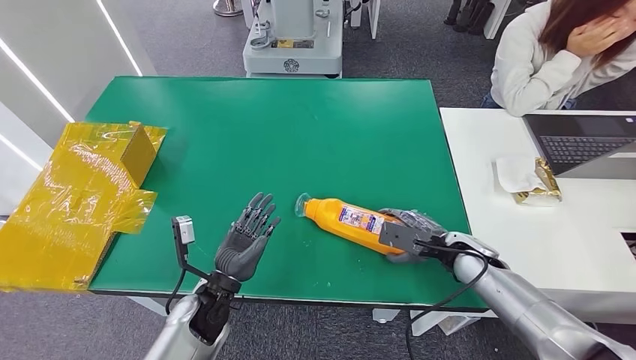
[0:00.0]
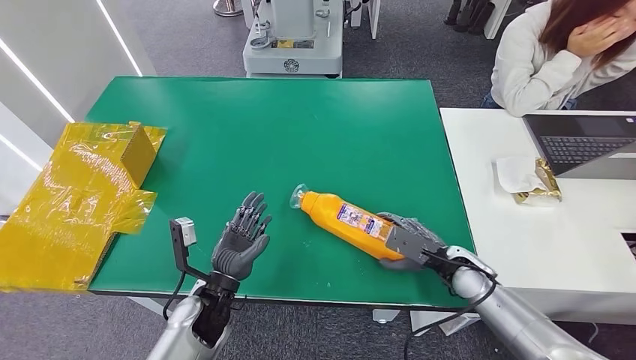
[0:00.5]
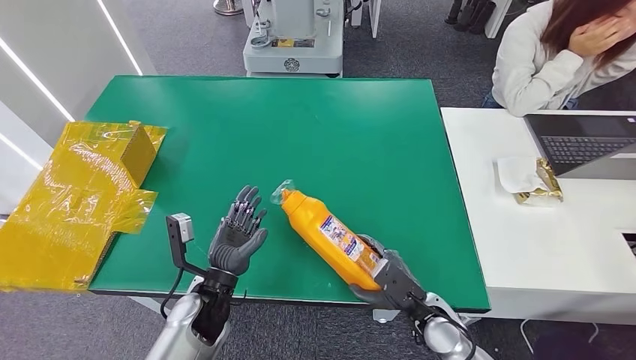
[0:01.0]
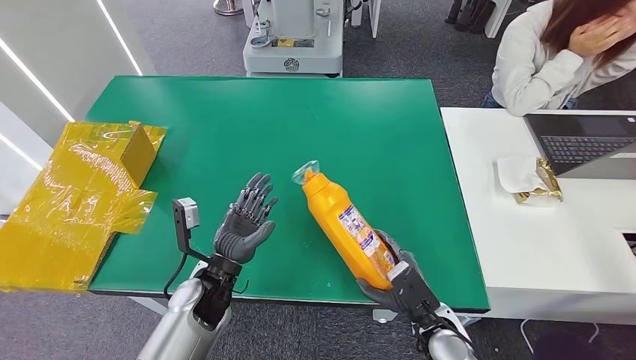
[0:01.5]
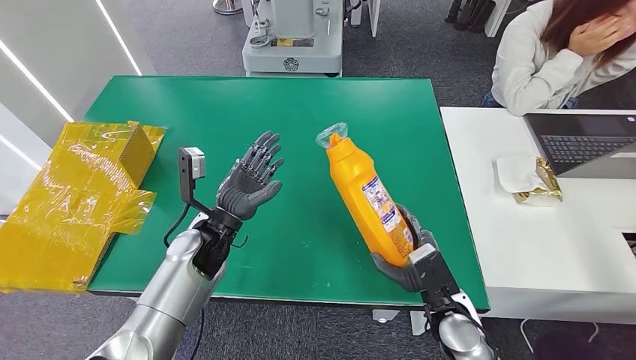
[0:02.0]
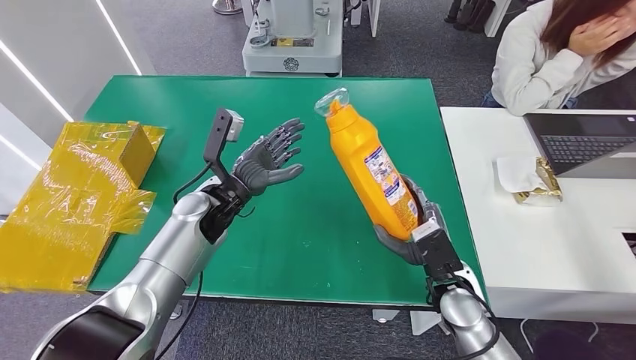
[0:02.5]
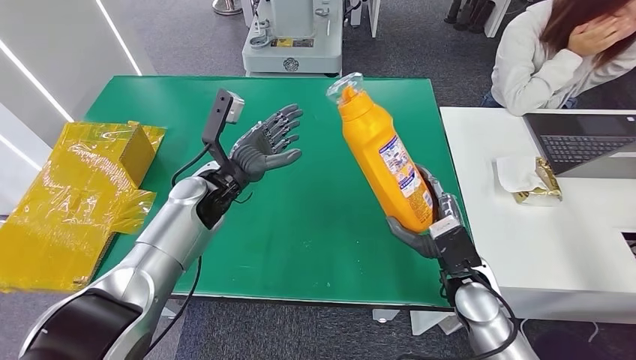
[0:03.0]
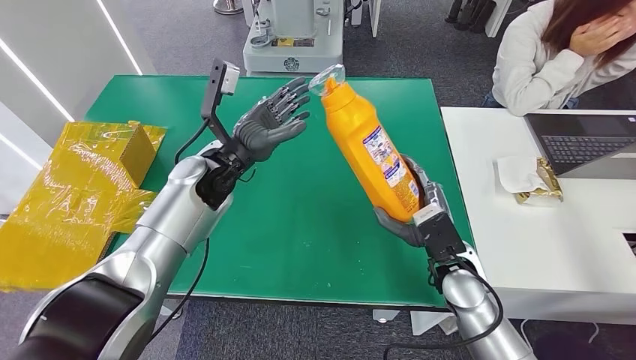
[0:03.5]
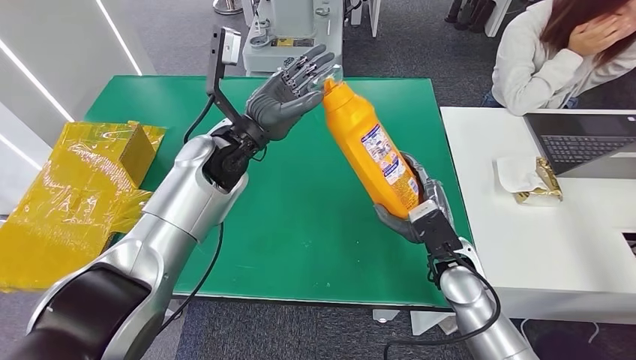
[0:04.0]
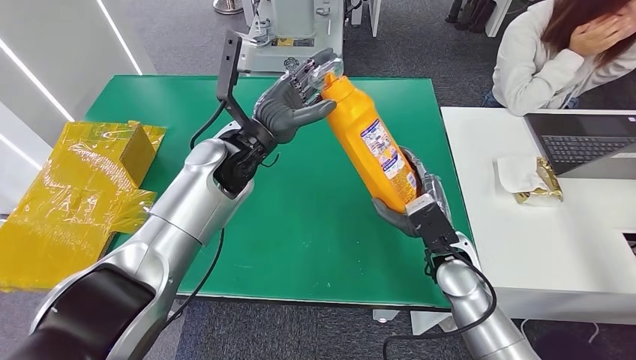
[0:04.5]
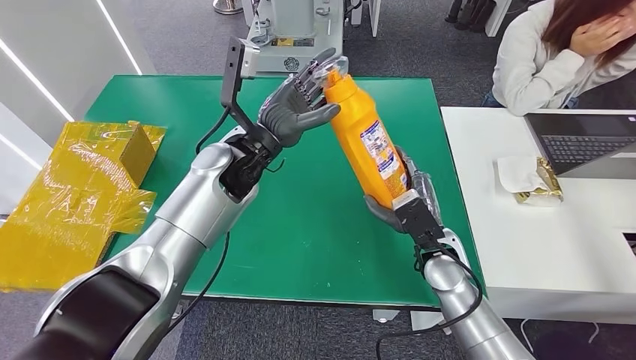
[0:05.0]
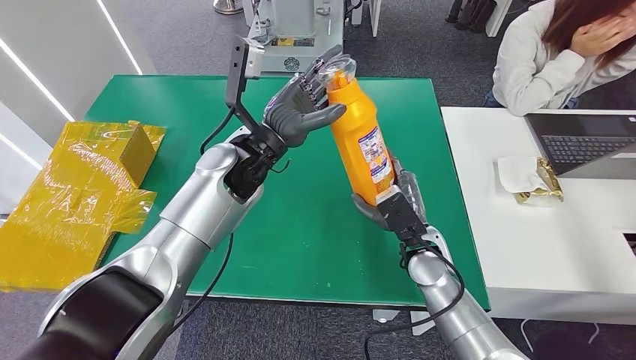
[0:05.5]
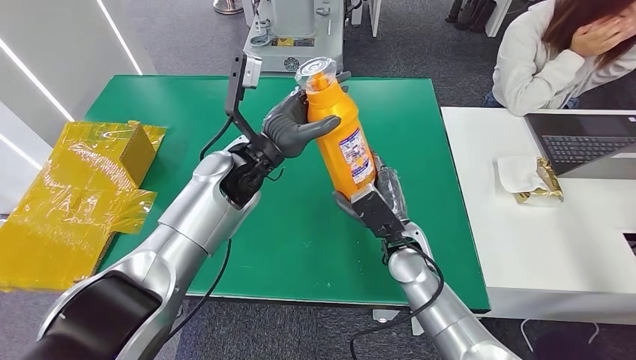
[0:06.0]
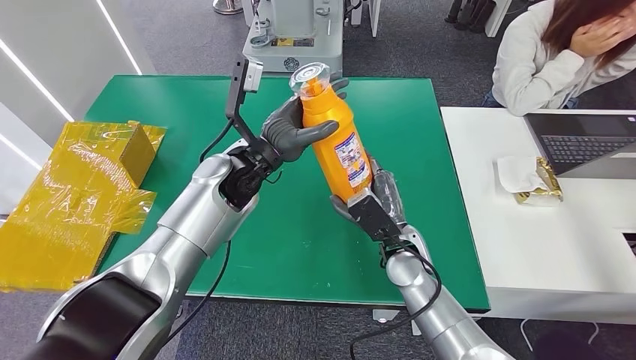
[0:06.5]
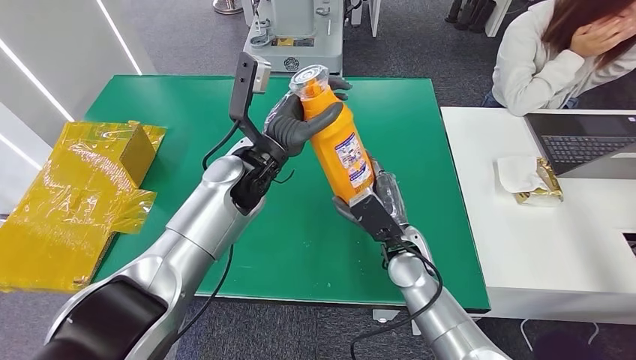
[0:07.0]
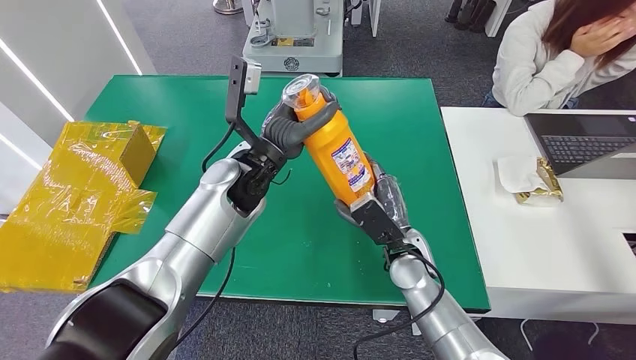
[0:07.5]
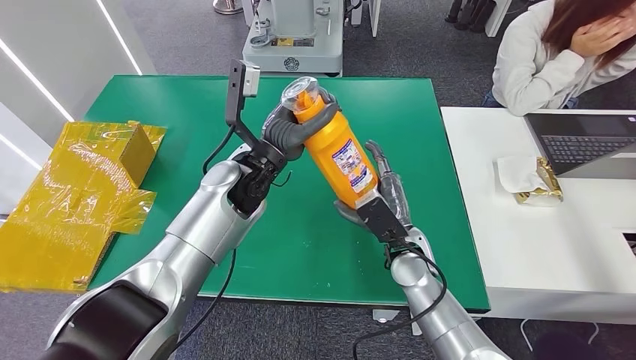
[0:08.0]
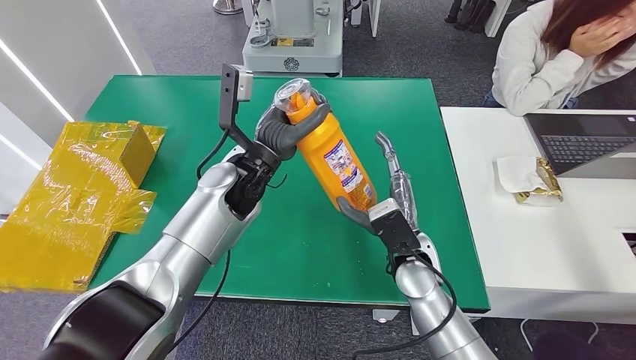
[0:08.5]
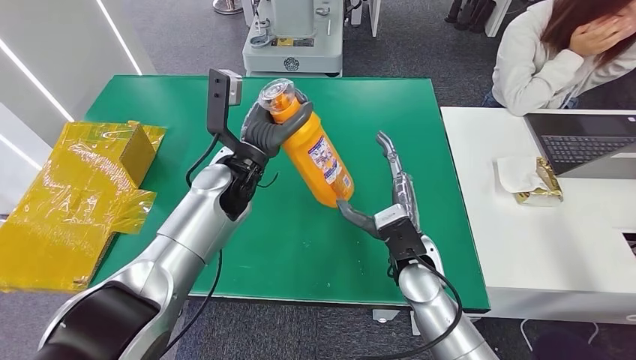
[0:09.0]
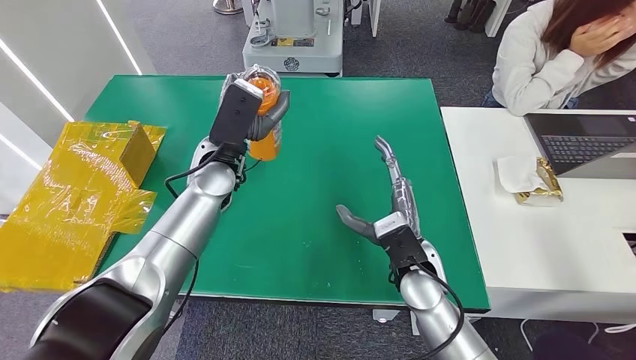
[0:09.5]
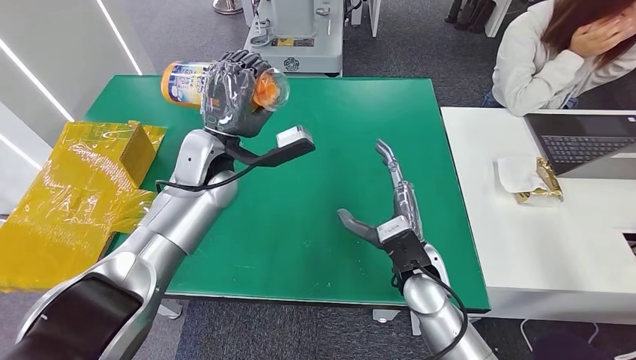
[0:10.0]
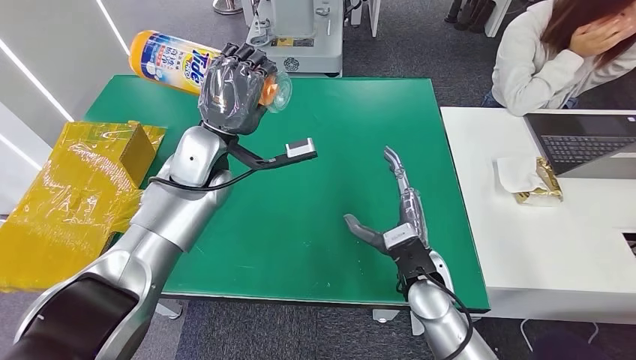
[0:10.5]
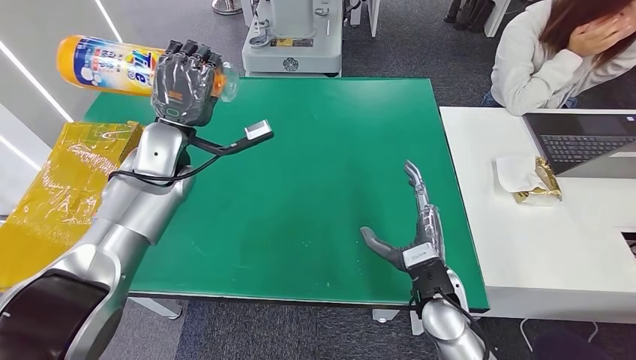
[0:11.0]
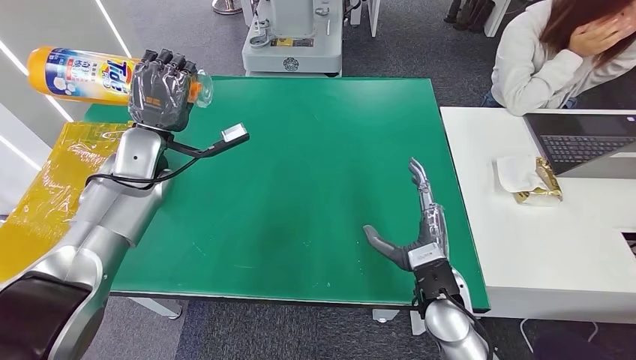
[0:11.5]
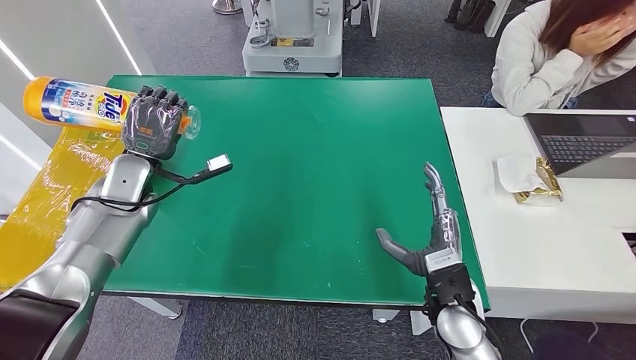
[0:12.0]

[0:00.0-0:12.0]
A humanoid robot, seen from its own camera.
0:00.0 to 0:02.0: The left hand travels forward and upward by roughly 15 cm. The right hand heads backward and to the left, covering roughly 15 cm.
0:06.0 to 0:08.0: The hands make only small movements.

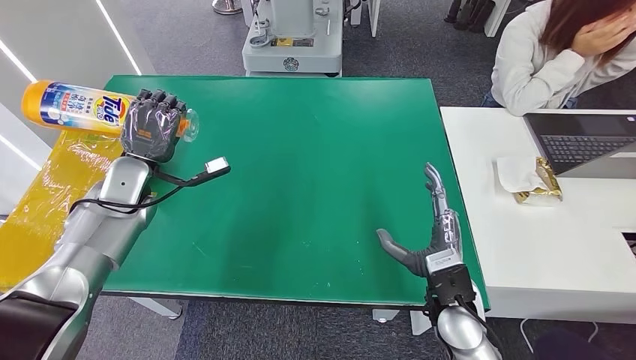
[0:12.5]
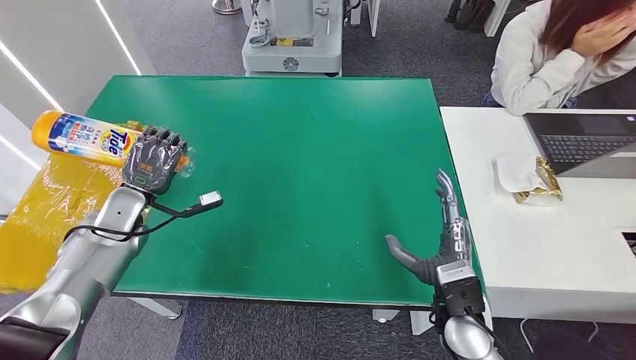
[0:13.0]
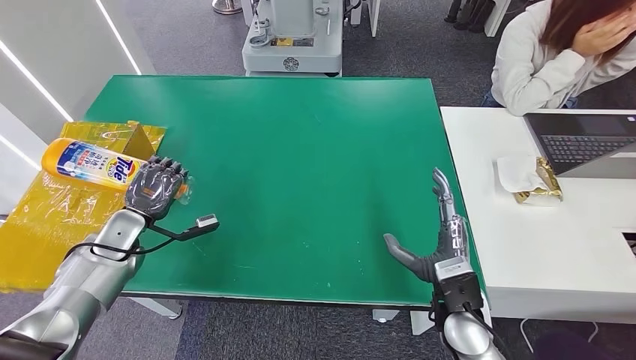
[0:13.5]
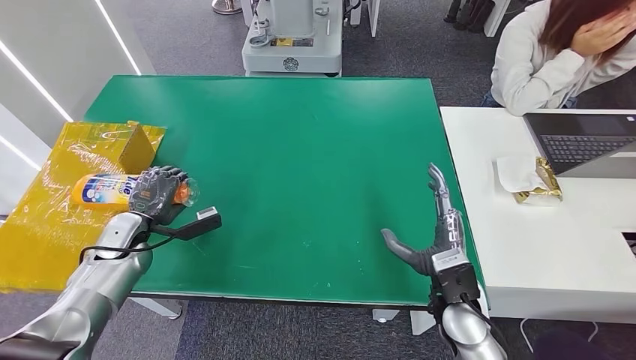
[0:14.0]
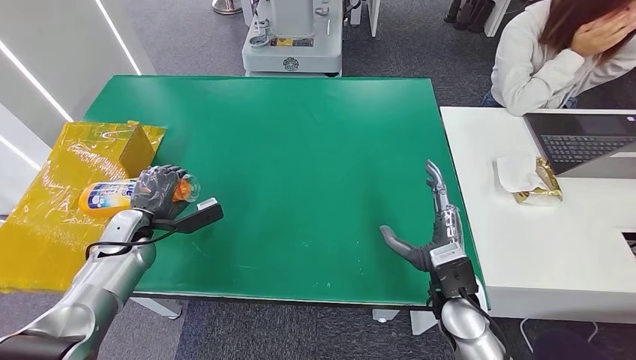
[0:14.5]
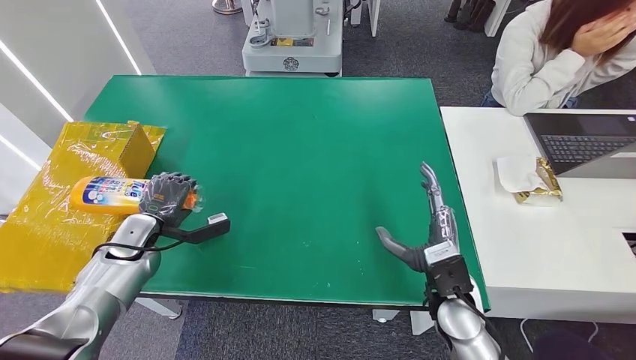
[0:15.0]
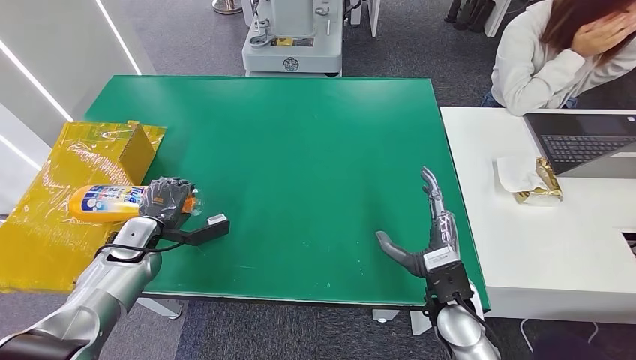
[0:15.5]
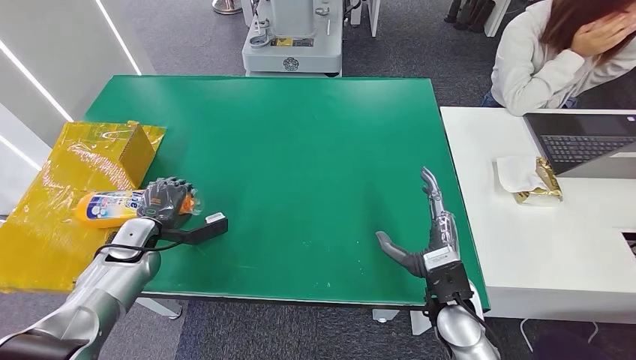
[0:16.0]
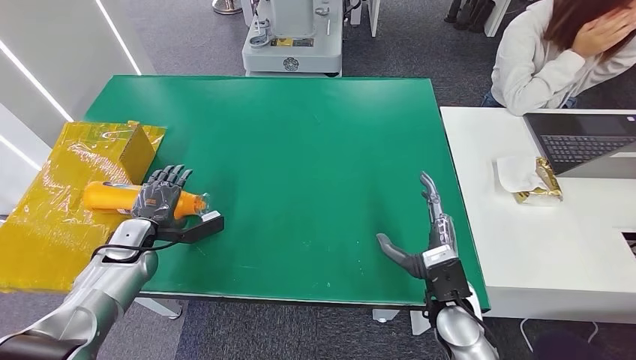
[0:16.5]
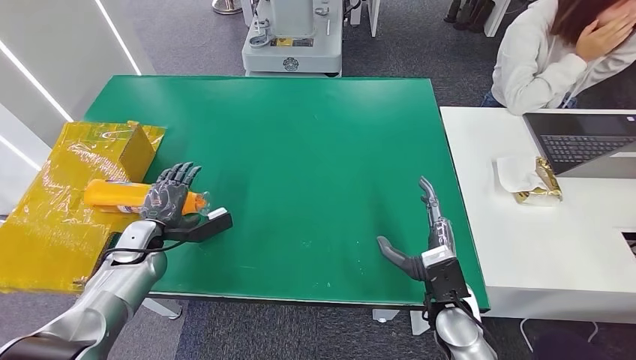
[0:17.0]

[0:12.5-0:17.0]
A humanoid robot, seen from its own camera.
Step, 0:12.5 to 0:17.0: Turn the bottle to the front side.
0:12.5 to 0:14.5: The left hand goes some 10 cm downward and backward.
0:14.5 to 0:17.0: The hands make only small movements.
